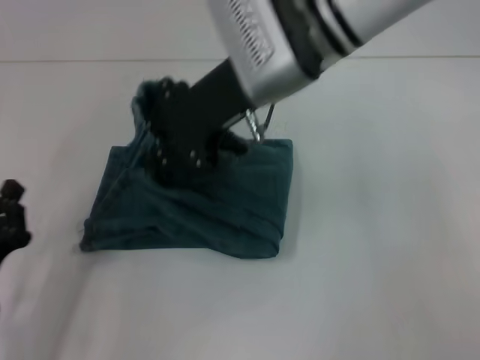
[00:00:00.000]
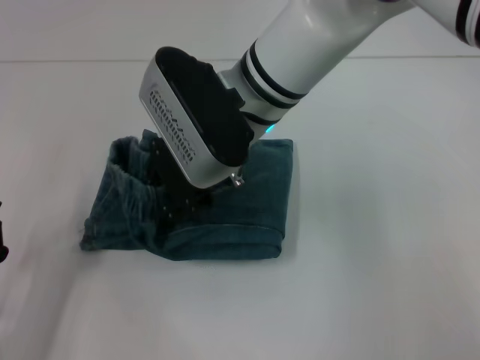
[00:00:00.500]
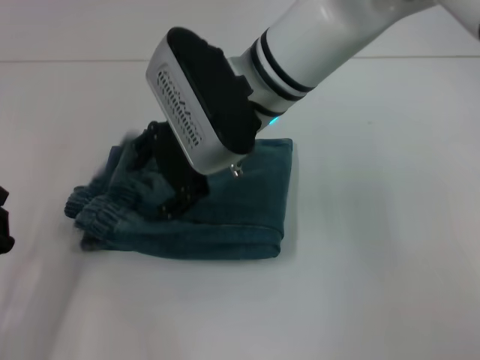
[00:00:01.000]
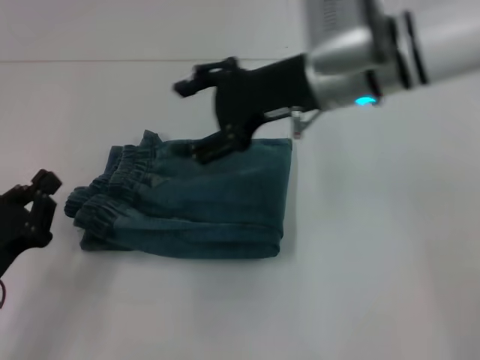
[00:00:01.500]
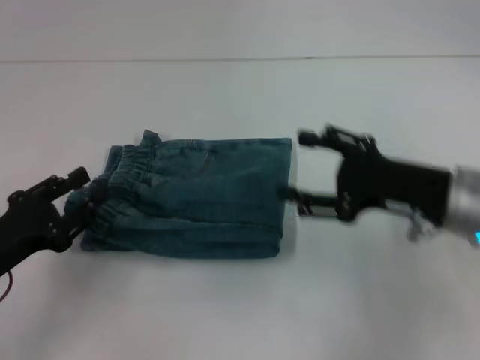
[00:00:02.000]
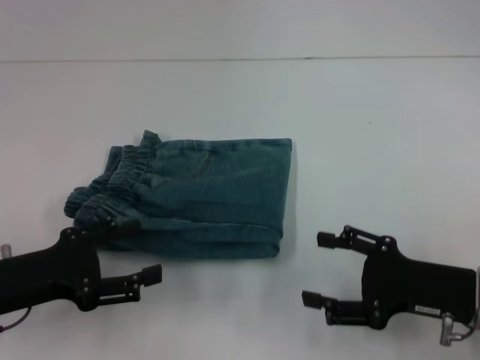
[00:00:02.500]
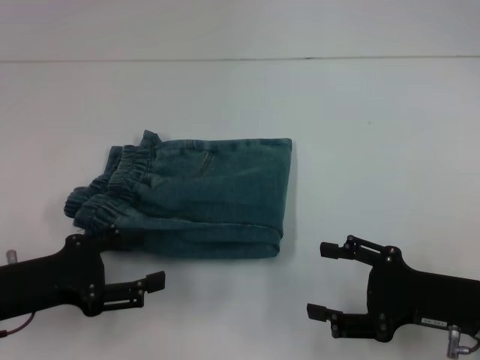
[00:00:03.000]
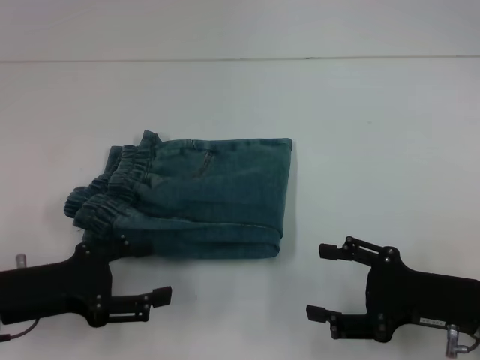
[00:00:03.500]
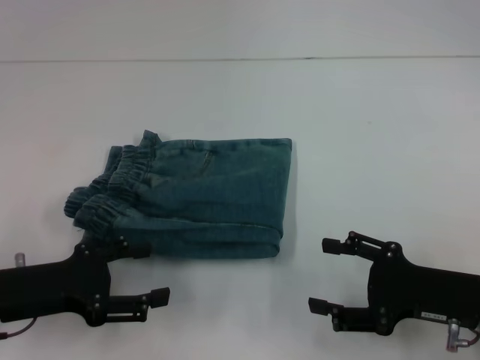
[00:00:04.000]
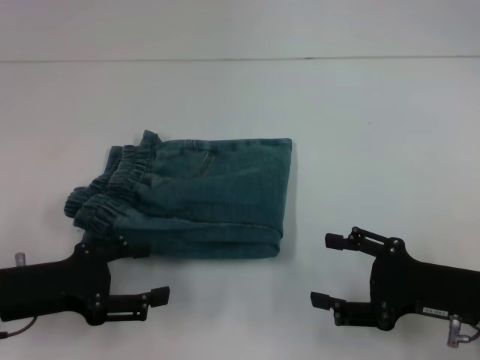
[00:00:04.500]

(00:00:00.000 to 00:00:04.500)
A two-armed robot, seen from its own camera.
00:00:00.000 - 00:00:02.000: The left gripper ends up approximately 5 cm from where it was. The right gripper goes some 25 cm to the right, downward and backward, and opens its fingers.
00:00:02.000 - 00:00:04.500: The right gripper heads backward, covering roughly 5 cm; the left gripper opens.

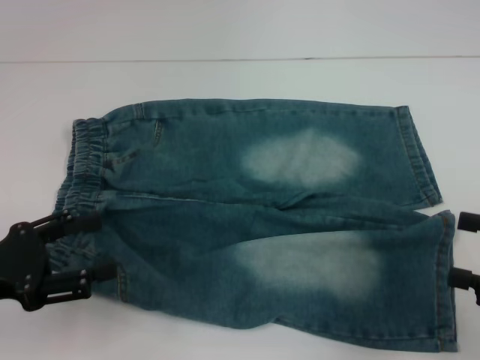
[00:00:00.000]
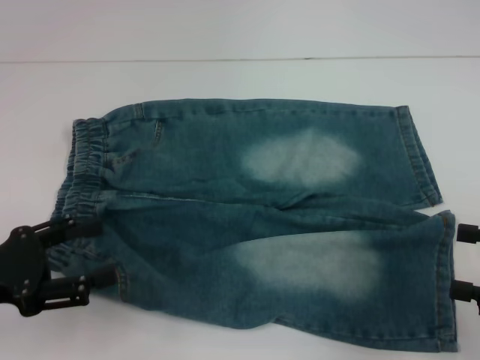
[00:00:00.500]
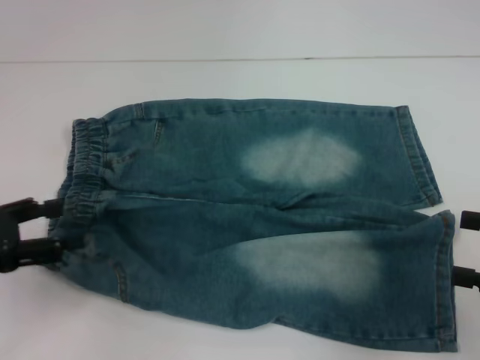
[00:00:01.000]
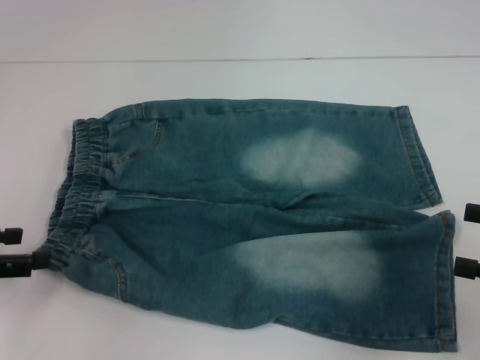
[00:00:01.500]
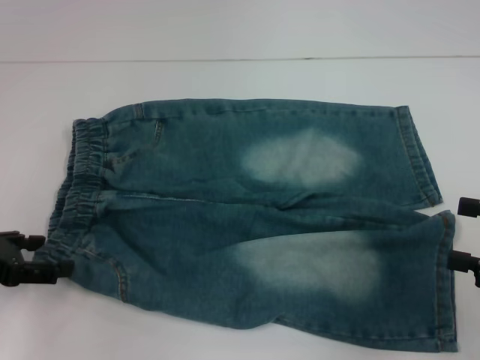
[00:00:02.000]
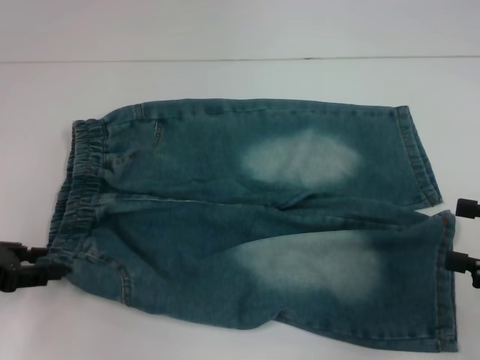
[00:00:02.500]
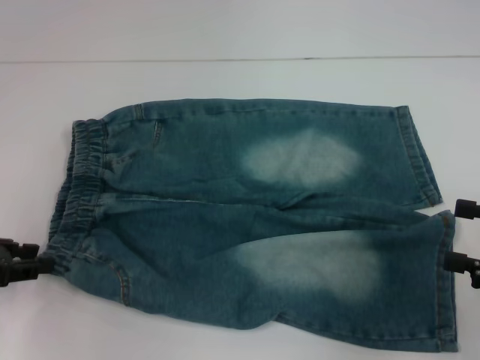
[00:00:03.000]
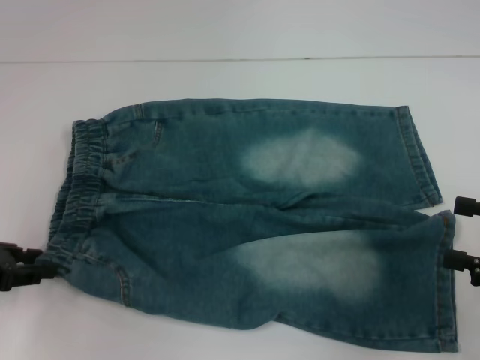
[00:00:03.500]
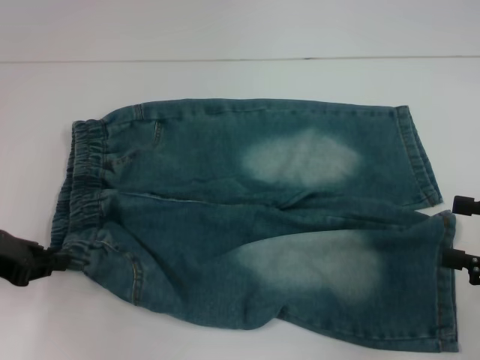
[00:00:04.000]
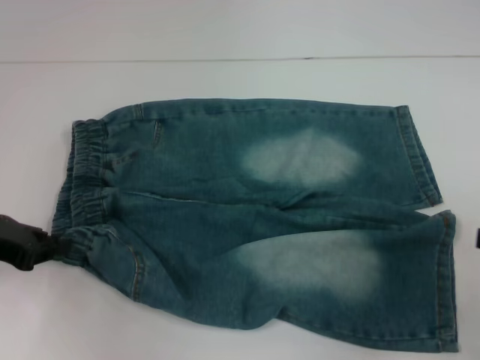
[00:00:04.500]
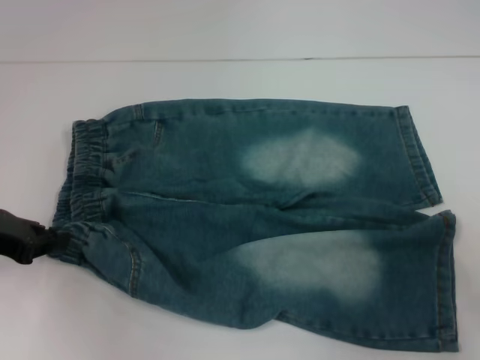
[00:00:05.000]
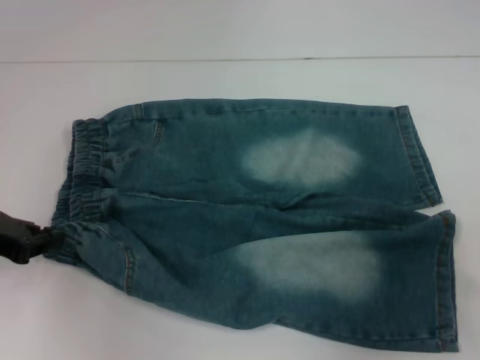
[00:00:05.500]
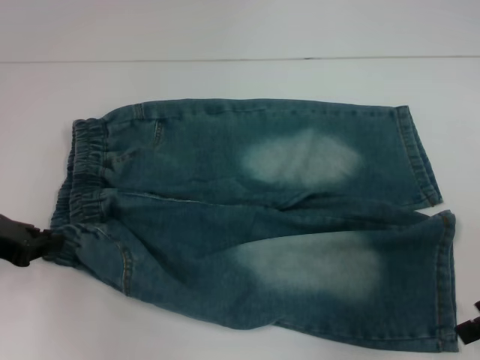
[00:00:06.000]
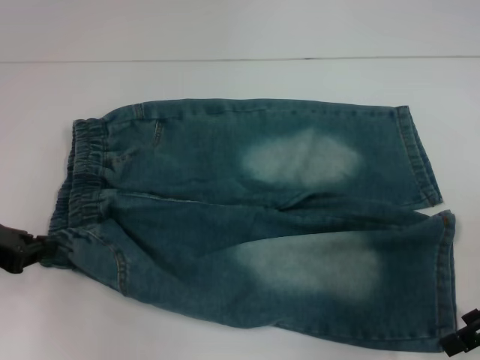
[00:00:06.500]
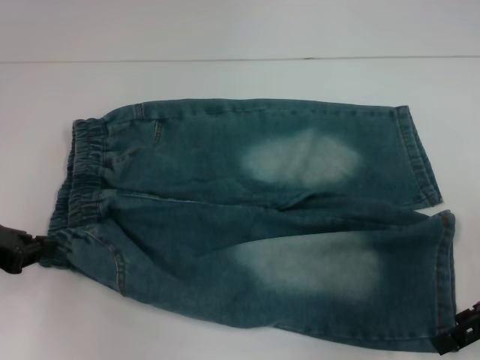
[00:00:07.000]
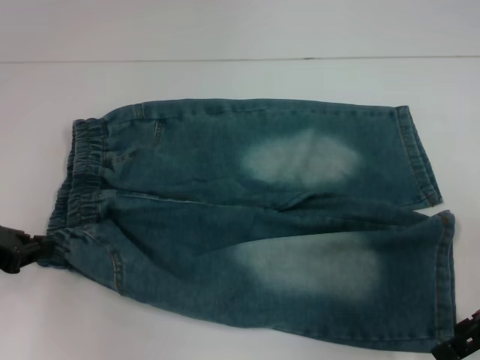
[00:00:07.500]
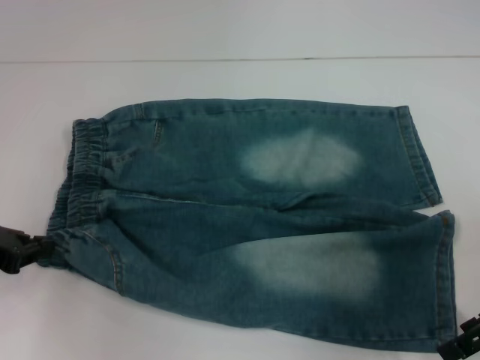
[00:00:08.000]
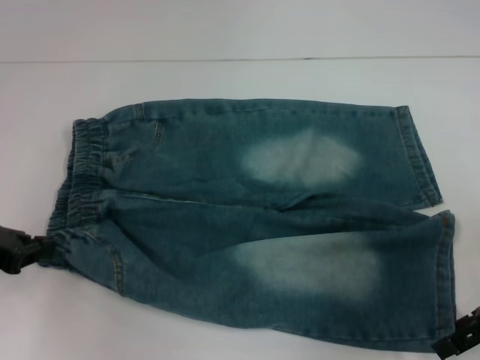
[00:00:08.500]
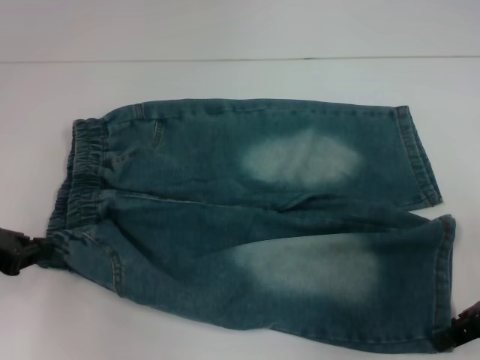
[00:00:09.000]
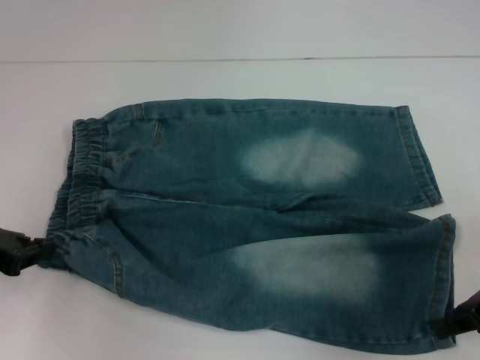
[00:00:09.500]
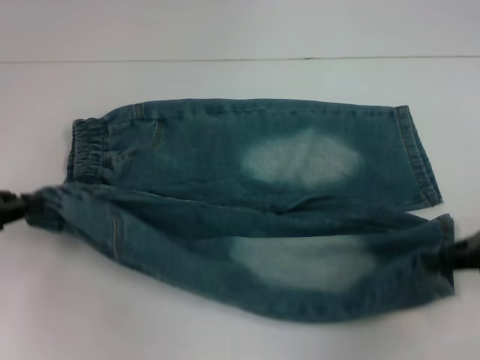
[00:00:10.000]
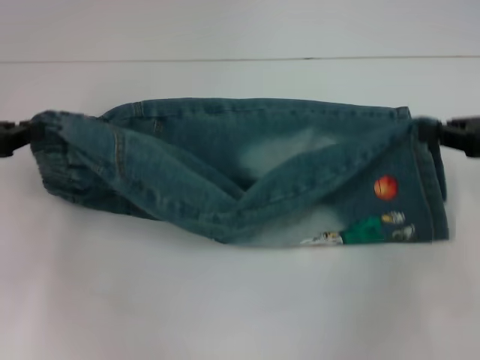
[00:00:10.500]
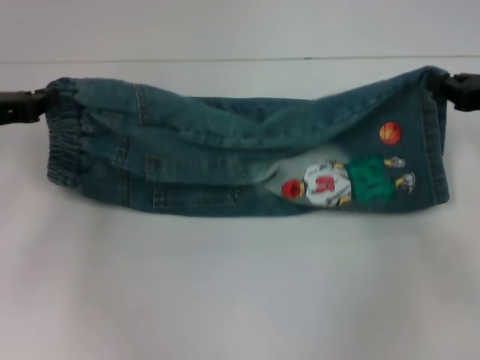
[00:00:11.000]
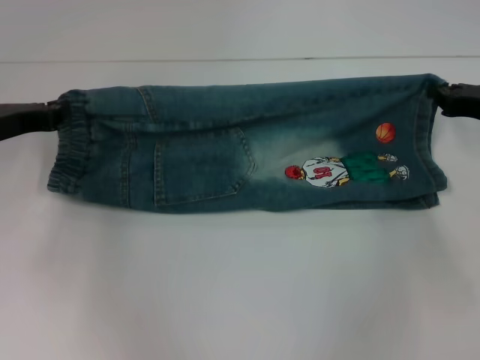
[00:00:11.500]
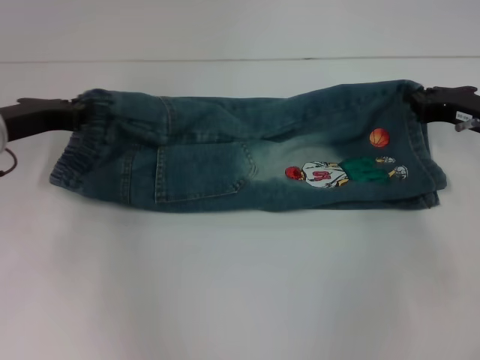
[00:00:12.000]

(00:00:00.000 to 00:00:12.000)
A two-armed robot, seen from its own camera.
Step, 00:00:00.000 - 00:00:04.000: Hold the lower left waistband with your left hand.
Step, 00:00:04.500 - 00:00:09.000: Grab the lower right pant leg with your right hand.
00:00:00.000 - 00:00:02.000: The left gripper shifts by about 5 cm.
00:00:02.000 - 00:00:04.000: The left gripper closes its fingers.
00:00:04.000 - 00:00:06.000: The right gripper ends up about 5 cm from where it was.
00:00:06.000 - 00:00:08.000: The grippers move only a little.
00:00:08.000 - 00:00:10.000: The right gripper closes up.
00:00:10.000 - 00:00:12.000: The right gripper shifts some 10 cm forward and downward. The left gripper heads forward and to the right, covering roughly 10 cm.

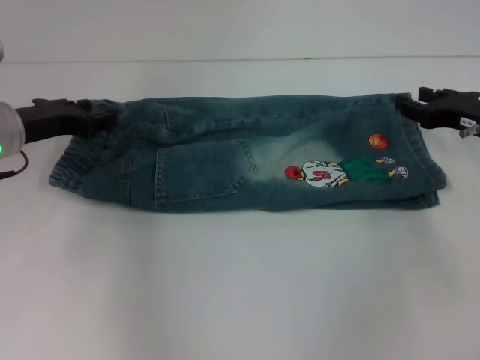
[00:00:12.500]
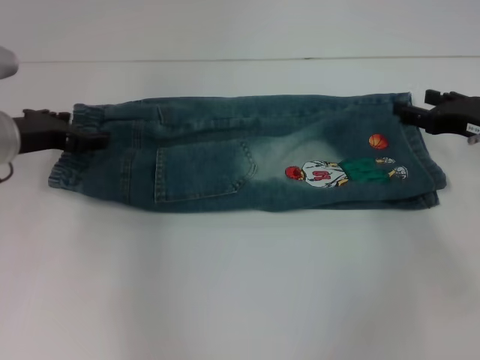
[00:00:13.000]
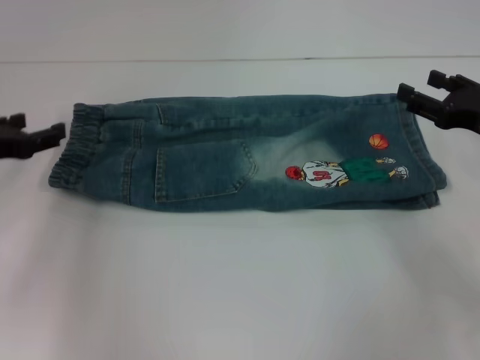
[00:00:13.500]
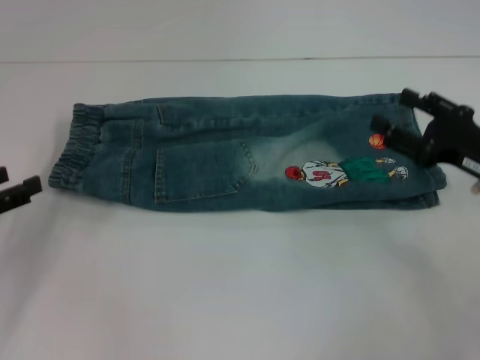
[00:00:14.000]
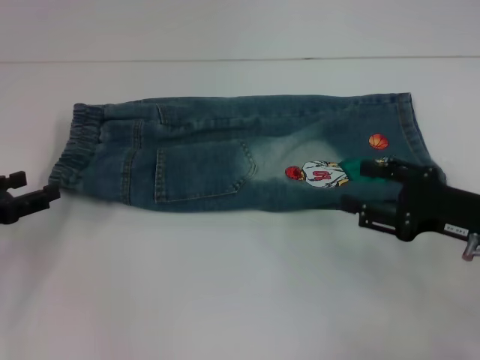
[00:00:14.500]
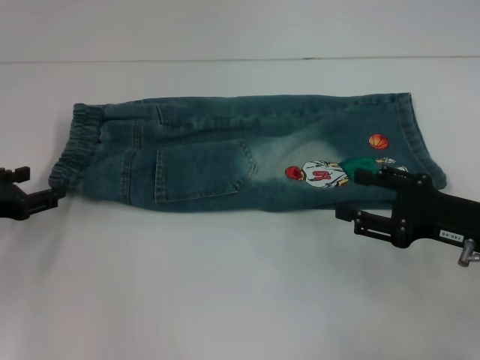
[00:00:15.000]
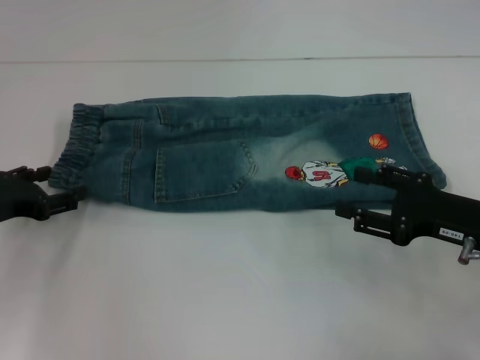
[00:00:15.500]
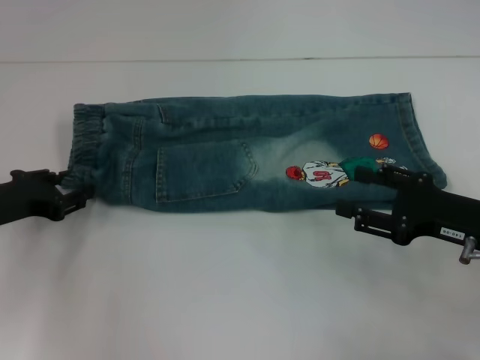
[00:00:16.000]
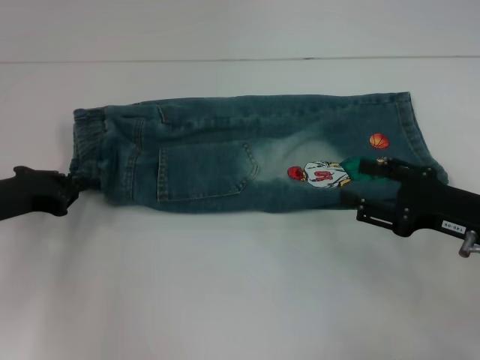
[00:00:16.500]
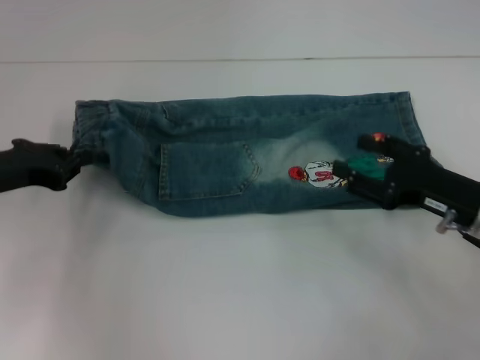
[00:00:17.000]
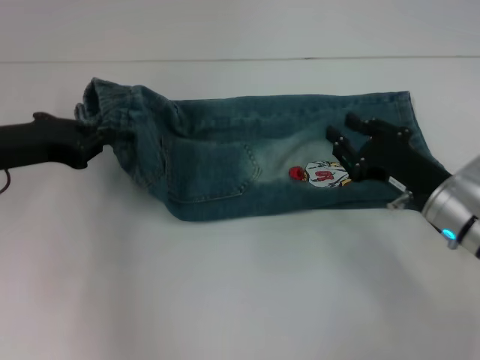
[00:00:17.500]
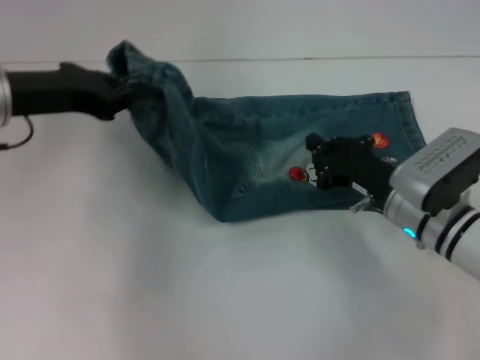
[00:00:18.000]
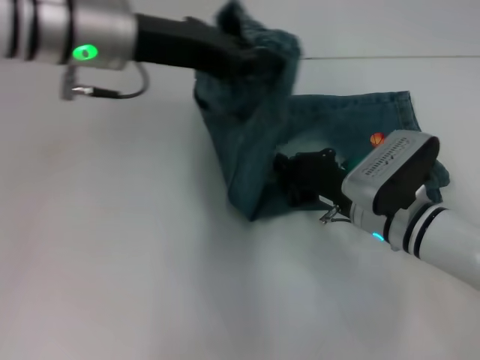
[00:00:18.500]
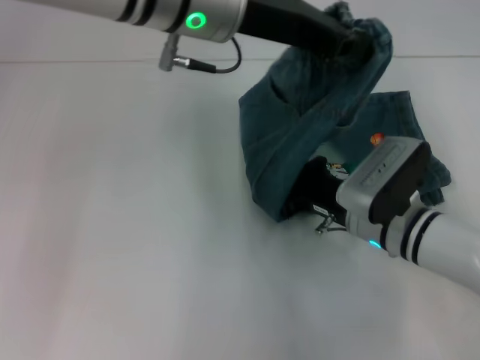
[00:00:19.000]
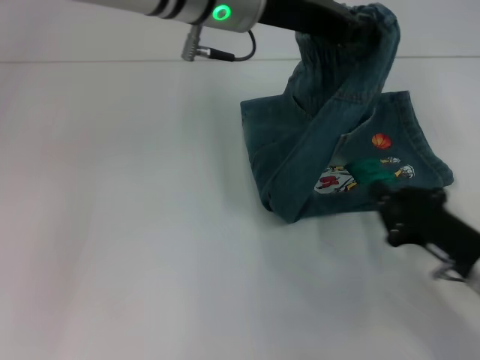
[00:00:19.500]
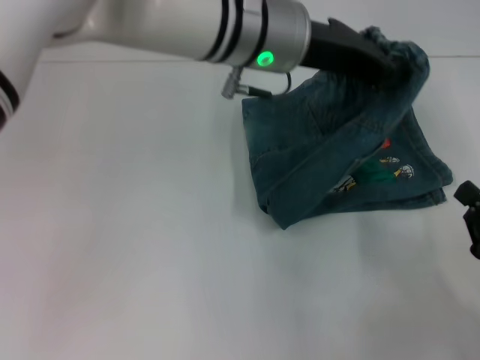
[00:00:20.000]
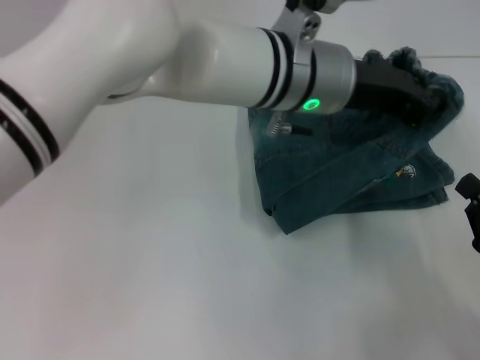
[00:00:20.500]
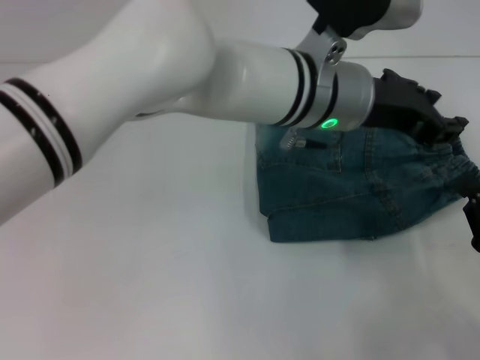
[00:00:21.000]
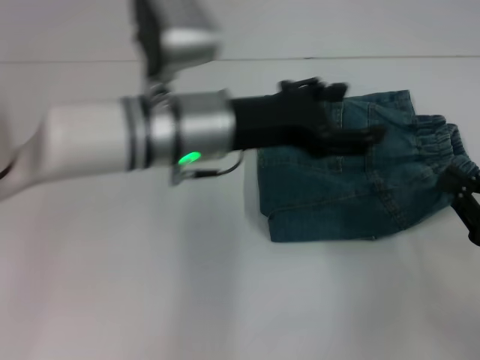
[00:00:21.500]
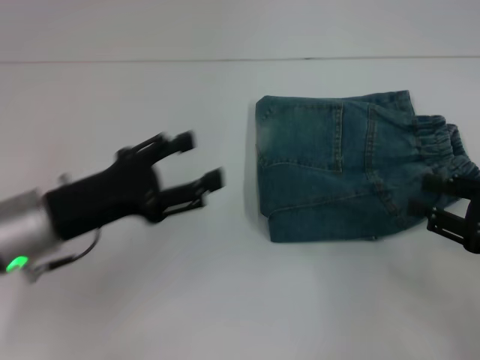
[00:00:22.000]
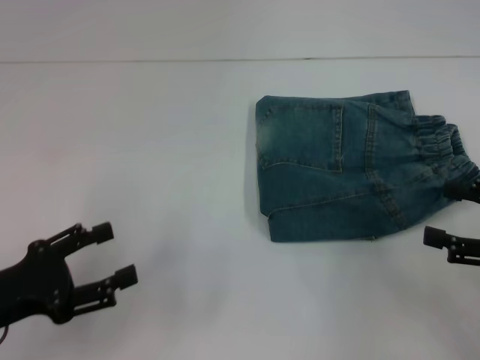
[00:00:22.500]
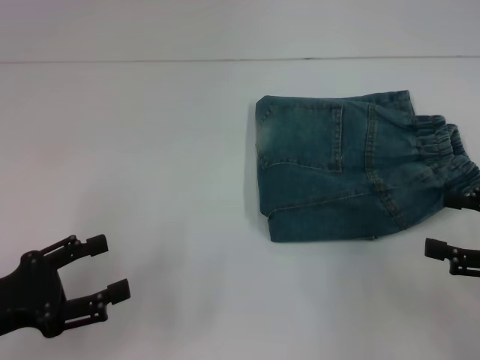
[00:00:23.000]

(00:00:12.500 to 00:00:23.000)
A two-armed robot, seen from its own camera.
Step, 00:00:13.500 - 00:00:16.500: Hold the waistband with your left hand.
Step, 00:00:17.000 - 00:00:19.000: Press the middle of the pants with your right hand.
Step, 00:00:19.500 - 00:00:21.000: Fold to the right with your left hand.
00:00:12.500 - 00:00:14.500: The left gripper moves backward and to the left, some 15 cm, and opens its fingers. The right gripper goes approximately 10 cm backward, and opens up.
00:00:14.500 - 00:00:16.500: The left gripper shifts by approximately 5 cm, and closes up.
00:00:16.500 - 00:00:19.000: The left gripper shifts approximately 30 cm to the right and upward. The right gripper is displaced to the left by approximately 10 cm, and closes its fingers.
00:00:19.000 - 00:00:21.000: The right gripper heads to the right and backward, covering roughly 20 cm. The left gripper is displaced to the right and downward by some 15 cm.
00:00:21.000 - 00:00:23.000: The left gripper goes approximately 40 cm to the left and backward, and opens its fingers. Meanwhile the right gripper moves upward, roughly 5 cm, and opens up.
